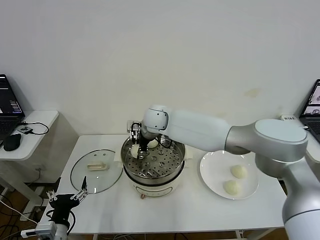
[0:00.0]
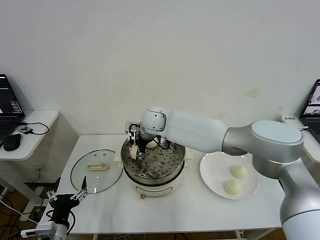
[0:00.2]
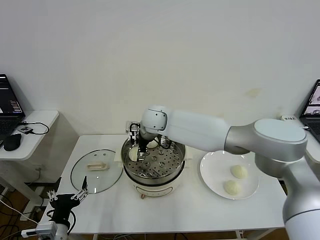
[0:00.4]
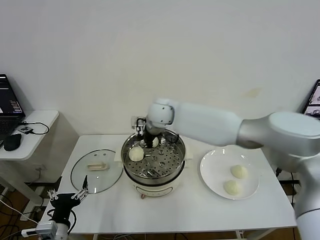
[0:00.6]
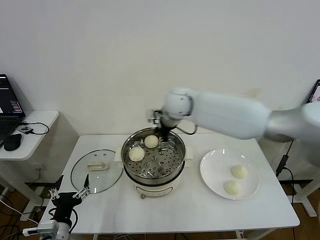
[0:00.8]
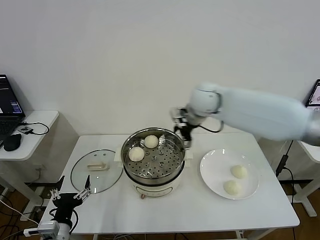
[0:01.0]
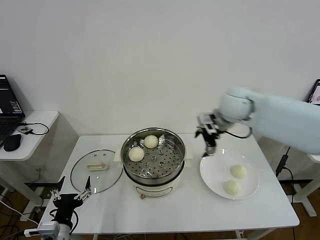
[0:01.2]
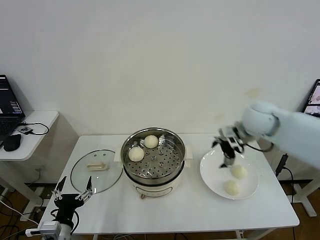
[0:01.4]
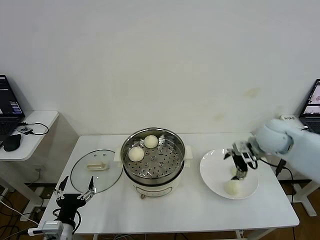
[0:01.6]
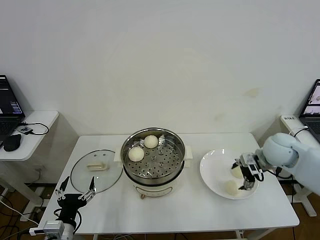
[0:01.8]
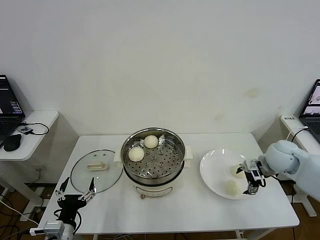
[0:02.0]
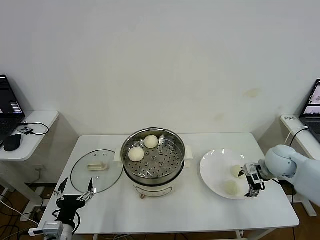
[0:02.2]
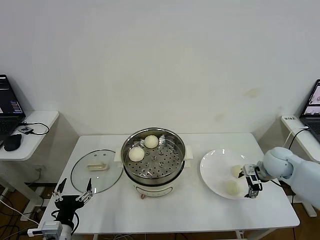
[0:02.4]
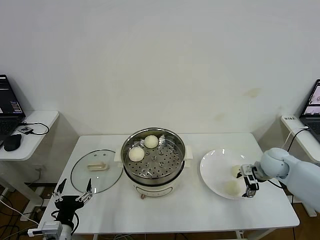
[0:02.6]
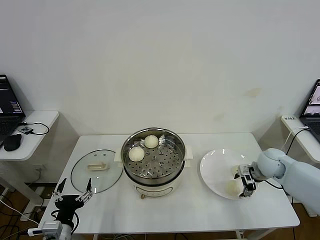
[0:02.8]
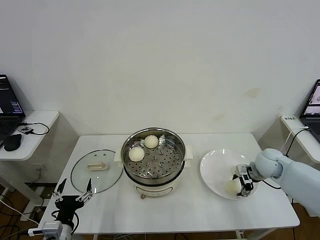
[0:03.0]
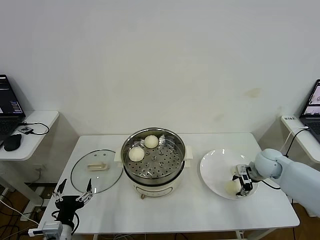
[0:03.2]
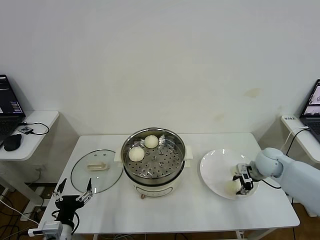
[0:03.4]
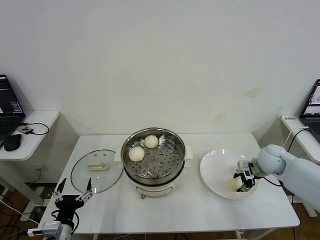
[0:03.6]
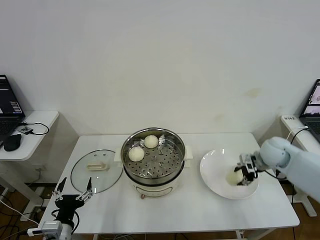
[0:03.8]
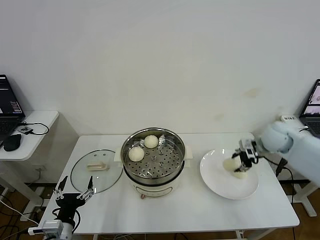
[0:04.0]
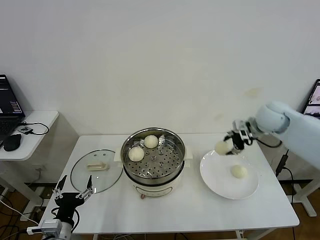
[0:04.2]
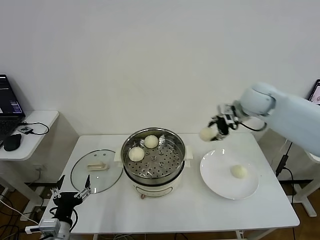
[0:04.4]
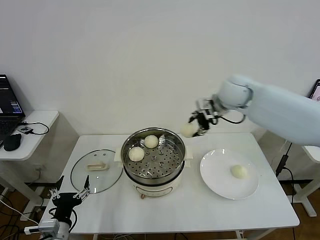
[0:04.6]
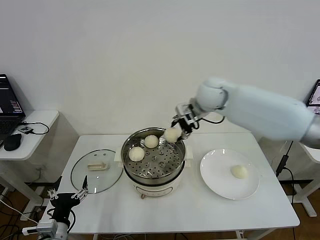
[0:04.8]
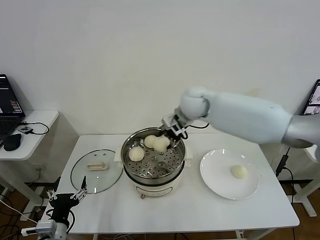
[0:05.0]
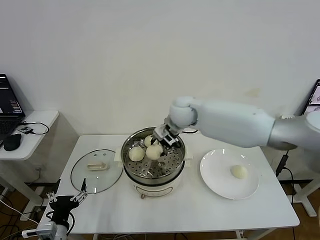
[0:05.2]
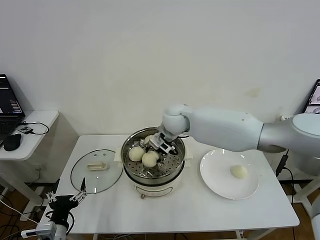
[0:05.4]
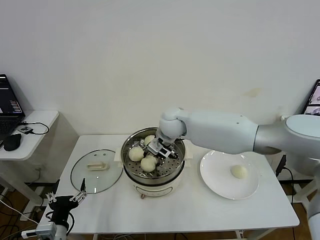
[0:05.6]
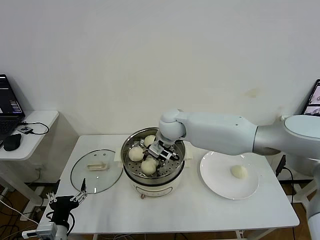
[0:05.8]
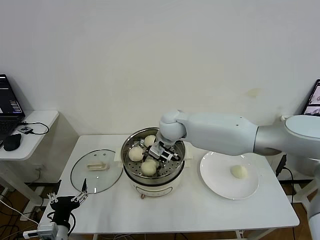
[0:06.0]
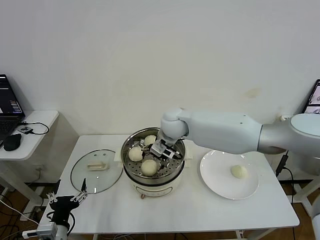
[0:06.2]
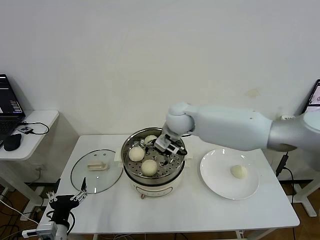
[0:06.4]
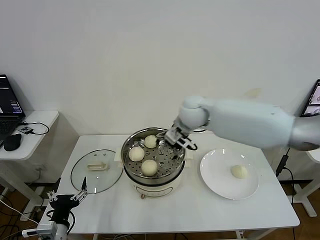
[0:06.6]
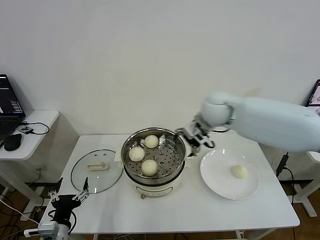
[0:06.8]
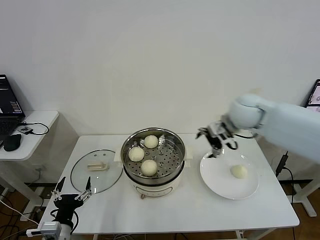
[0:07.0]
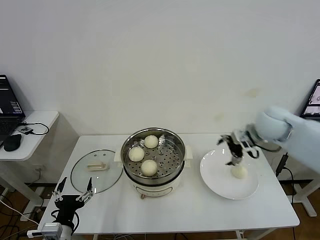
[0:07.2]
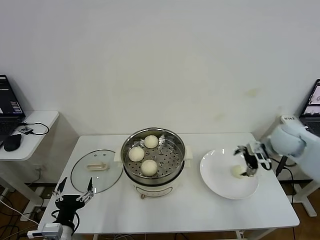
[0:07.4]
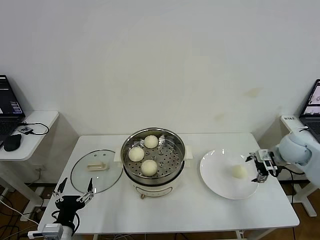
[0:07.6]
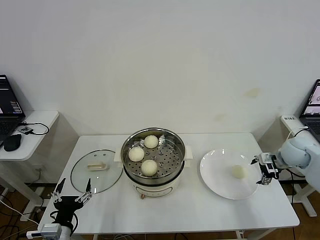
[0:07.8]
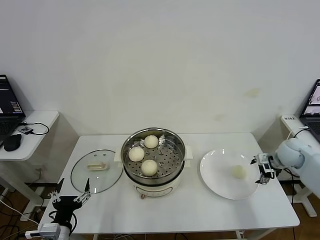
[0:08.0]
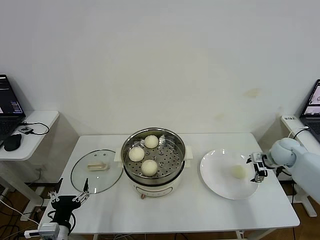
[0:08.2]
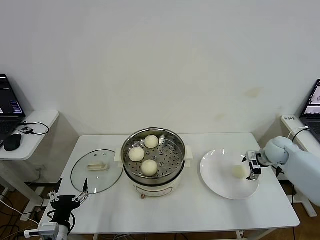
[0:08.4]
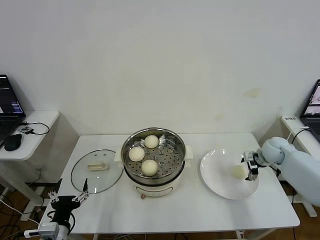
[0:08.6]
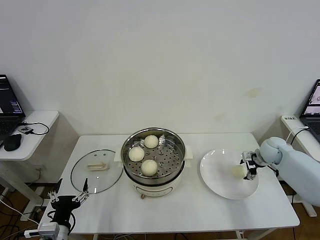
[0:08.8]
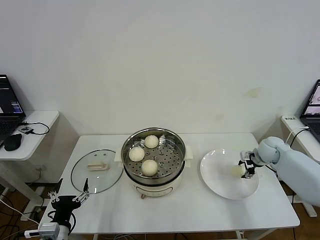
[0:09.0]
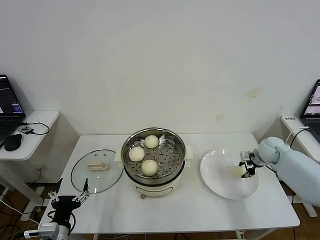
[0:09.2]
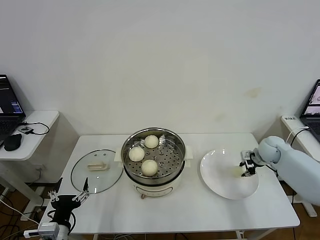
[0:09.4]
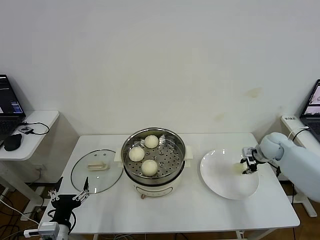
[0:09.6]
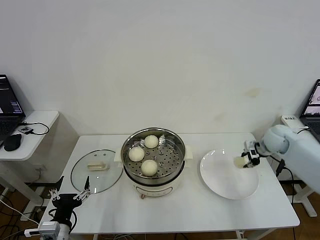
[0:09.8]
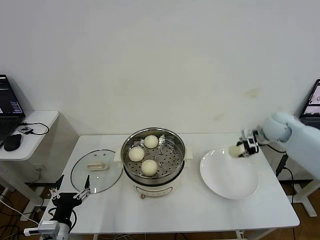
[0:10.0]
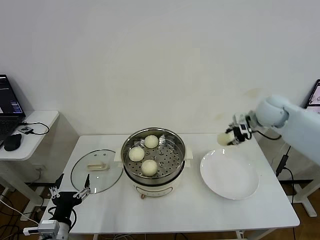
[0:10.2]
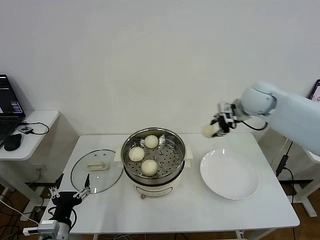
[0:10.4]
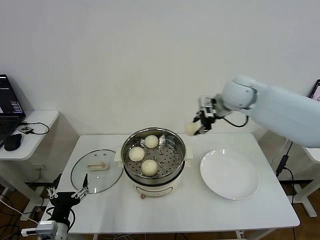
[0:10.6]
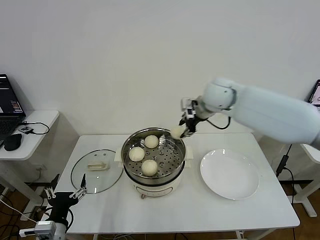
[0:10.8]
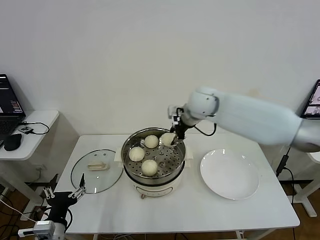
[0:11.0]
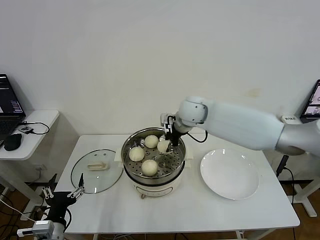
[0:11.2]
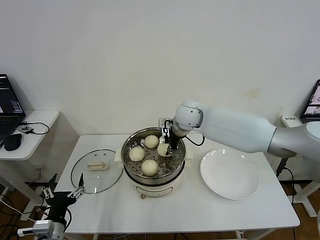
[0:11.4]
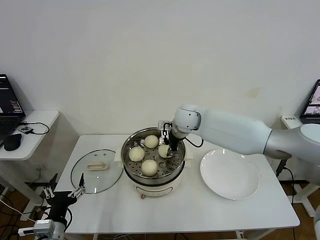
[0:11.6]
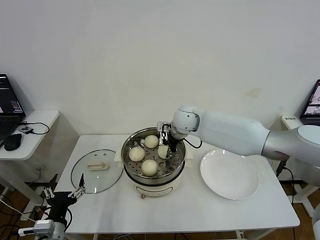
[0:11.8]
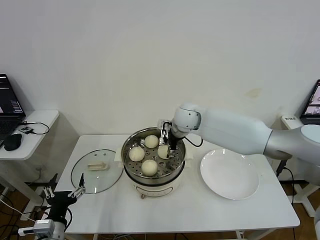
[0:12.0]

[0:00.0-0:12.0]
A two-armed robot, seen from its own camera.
Step, 0:00.6 to 0:03.2: Grasp the baozi in the plate with right gripper.
Step, 0:03.6 to 0:06.2: Place the baozi on the steamer with right gripper.
Step, 0:06.4 to 0:09.4: Grasp the baozi in the plate with right gripper.
0:00.0 to 0:01.6: The right gripper moves to the right, approximately 35 cm, and opens up.
0:01.6 to 0:03.0: The right gripper heads downward, covering about 10 cm, and closes up.
0:03.0 to 0:04.4: The right gripper goes about 25 cm upward and to the left, and closes its fingers.
0:04.4 to 0:06.0: The right gripper heads to the left and downward, covering roughly 25 cm.
0:06.0 to 0:07.6: The right gripper is displaced to the right by approximately 40 cm, and opens up.
0:07.6 to 0:09.0: The right gripper heads downward and forward, covering about 10 cm, and closes.
0:09.0 to 0:10.4: The right gripper moves upward and to the left, approximately 25 cm, and closes.
0:10.4 to 0:12.0: The right gripper moves to the left and downward, roughly 20 cm, and opens up.

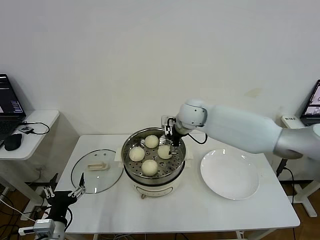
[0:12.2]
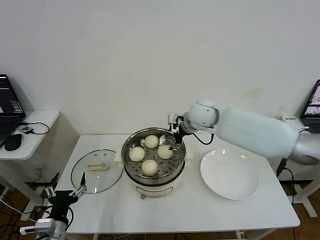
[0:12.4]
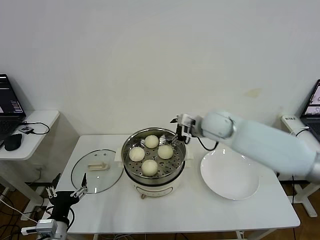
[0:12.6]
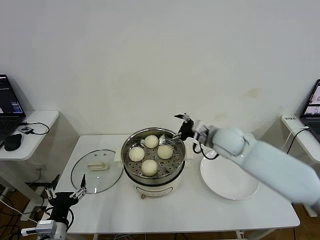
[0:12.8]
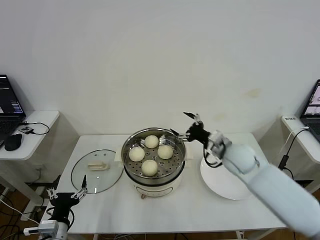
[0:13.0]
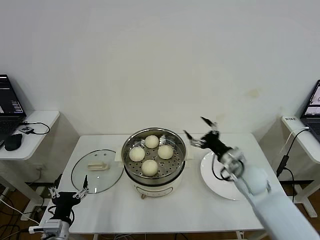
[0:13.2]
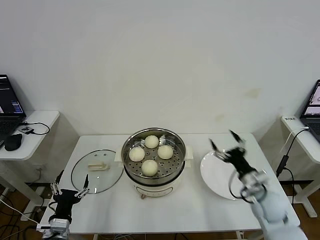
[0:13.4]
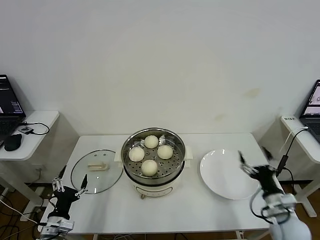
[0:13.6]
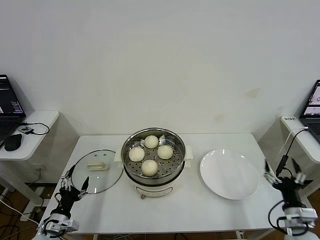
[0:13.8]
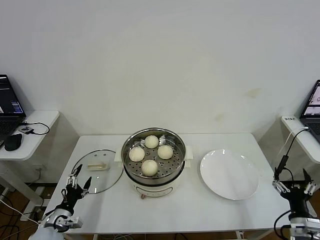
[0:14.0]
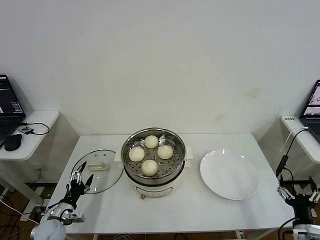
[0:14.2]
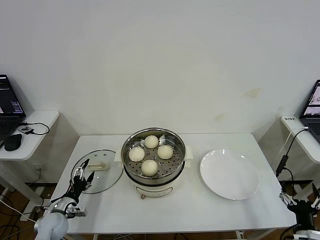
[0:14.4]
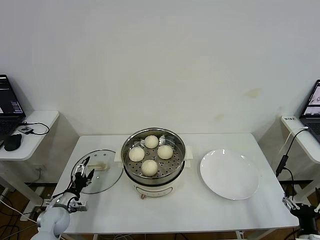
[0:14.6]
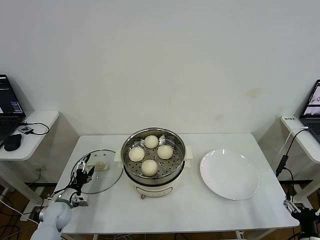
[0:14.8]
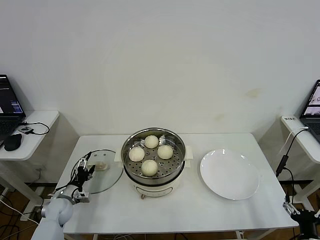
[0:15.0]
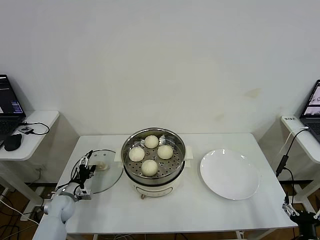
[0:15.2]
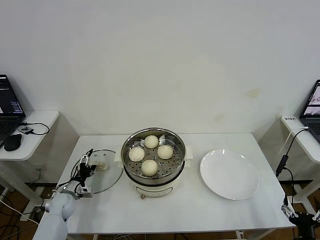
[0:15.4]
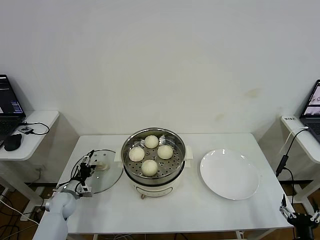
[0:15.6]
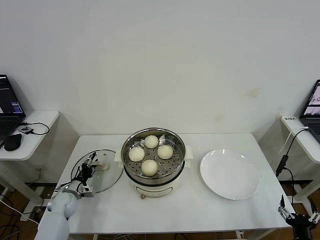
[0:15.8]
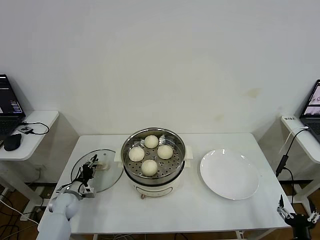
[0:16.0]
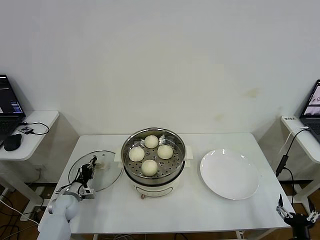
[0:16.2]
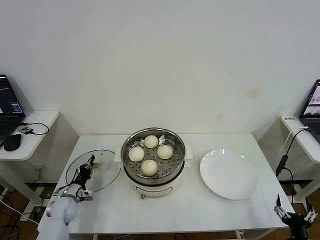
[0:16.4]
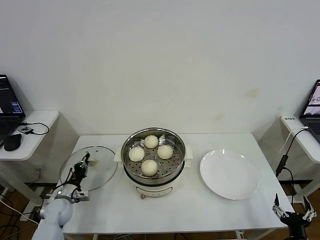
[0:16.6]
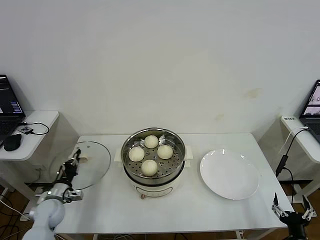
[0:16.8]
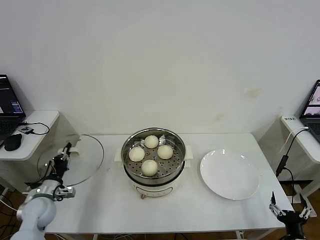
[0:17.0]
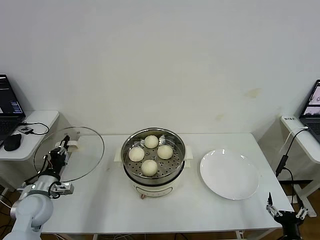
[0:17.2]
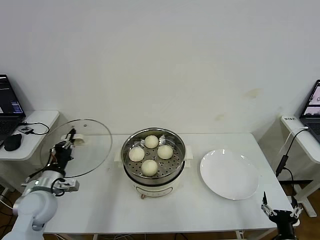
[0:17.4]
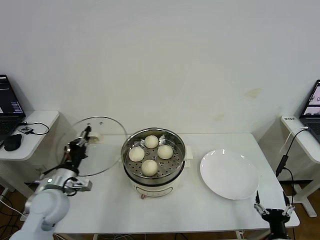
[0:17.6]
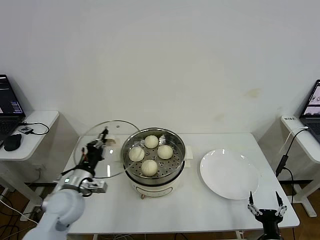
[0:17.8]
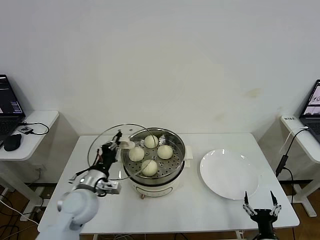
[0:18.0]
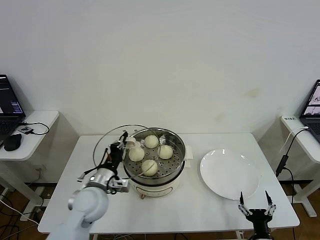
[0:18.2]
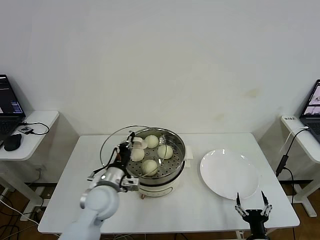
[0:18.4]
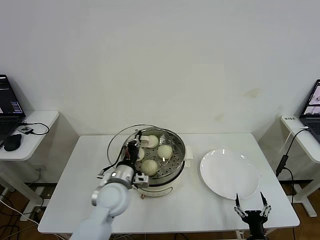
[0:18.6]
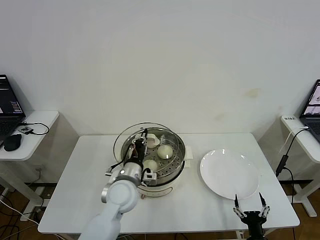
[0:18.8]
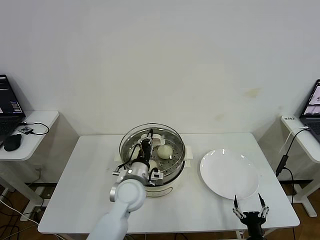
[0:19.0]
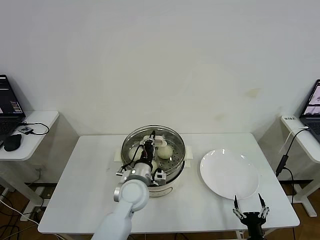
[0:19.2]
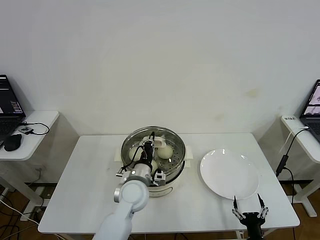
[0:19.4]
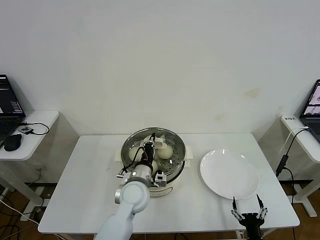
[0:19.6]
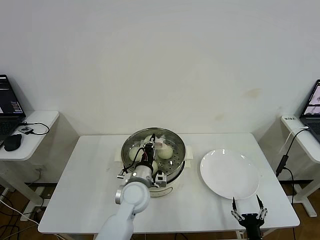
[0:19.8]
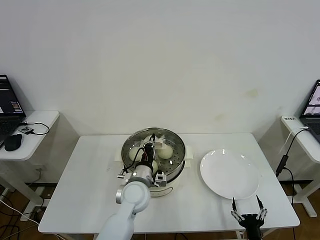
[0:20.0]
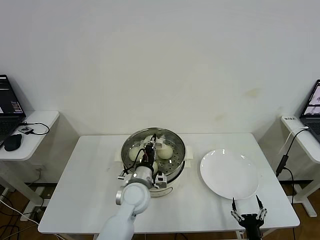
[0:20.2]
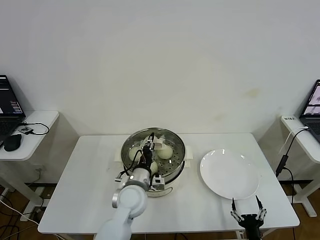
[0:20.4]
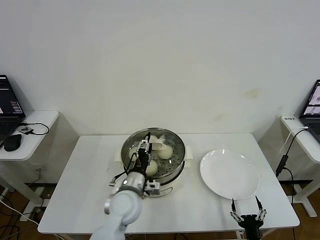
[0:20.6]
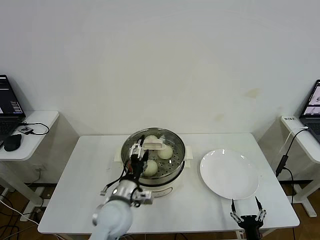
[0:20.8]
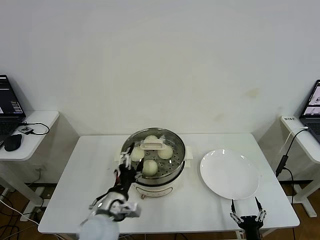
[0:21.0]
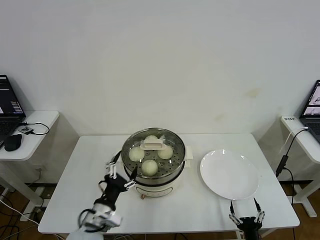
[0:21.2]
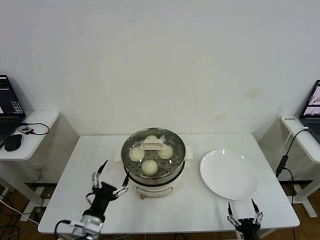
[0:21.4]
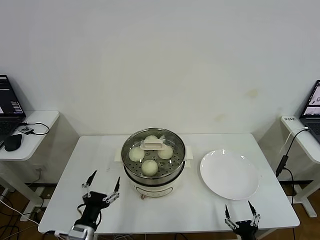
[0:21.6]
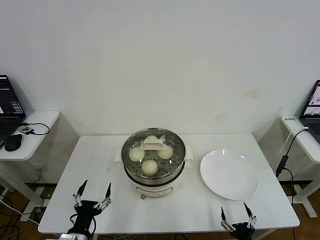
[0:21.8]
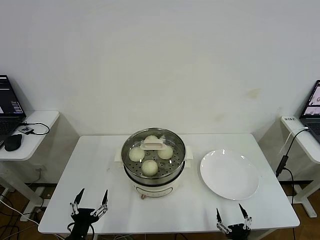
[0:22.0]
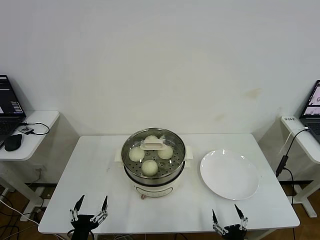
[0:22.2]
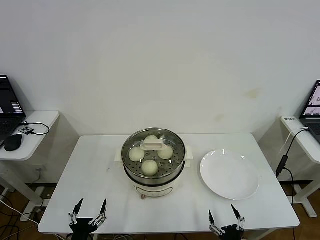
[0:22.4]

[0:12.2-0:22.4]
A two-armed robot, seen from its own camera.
Step, 0:12.2 to 0:16.4: Grasp the pot lid with left gripper.
Step, 0:16.6 to 0:20.4: Place the pot lid on the steamer with left gripper.
0:12.2 to 0:13.6: The left gripper is displaced downward by about 5 cm, while the right gripper is displaced backward, to the right and downward by some 40 cm.
0:13.6 to 0:15.2: The left gripper is displaced forward and downward by about 20 cm. Meanwhile the right gripper goes approximately 15 cm backward, downward and to the right.
0:15.2 to 0:16.6: The left gripper closes.
0:16.6 to 0:18.0: The left gripper goes some 25 cm upward and to the right; the right gripper goes approximately 5 cm to the left.
0:18.0 to 0:19.4: The left gripper heads to the right, covering some 15 cm.
0:19.4 to 0:21.0: The left gripper shifts some 10 cm backward and to the left, and opens its fingers.
0:21.0 to 0:22.4: The left gripper shifts some 20 cm backward, to the left and downward, while the right gripper moves some 5 cm.
